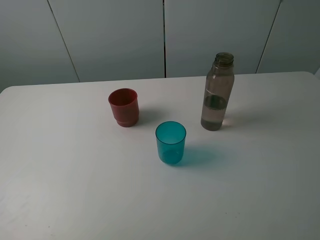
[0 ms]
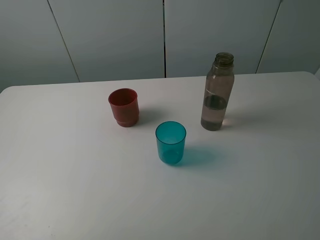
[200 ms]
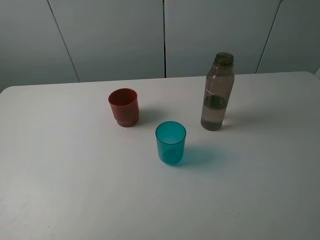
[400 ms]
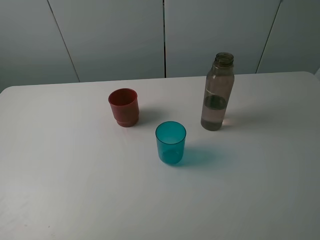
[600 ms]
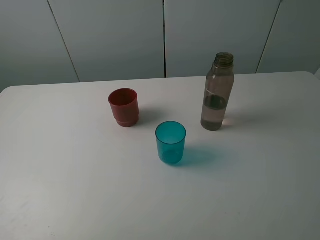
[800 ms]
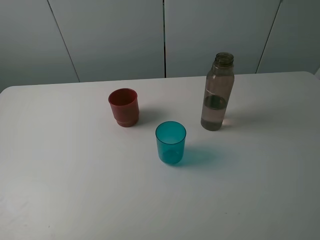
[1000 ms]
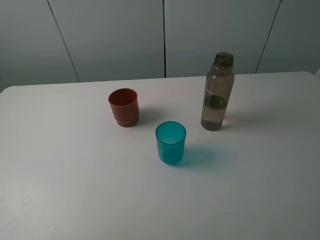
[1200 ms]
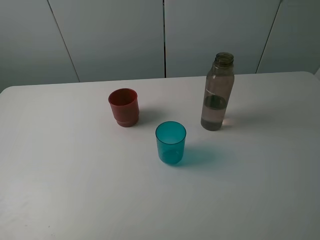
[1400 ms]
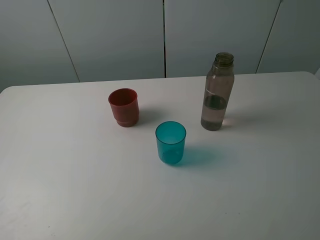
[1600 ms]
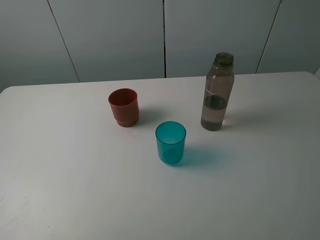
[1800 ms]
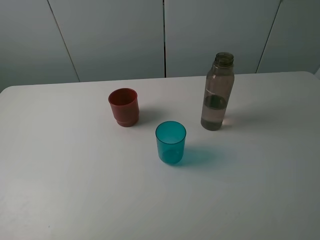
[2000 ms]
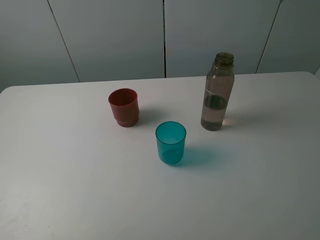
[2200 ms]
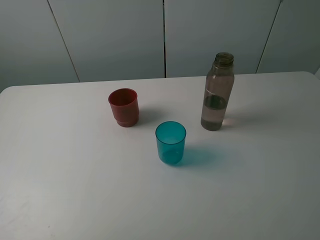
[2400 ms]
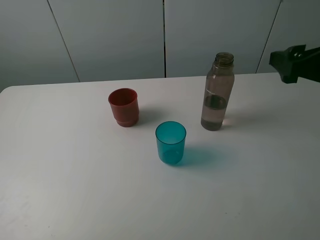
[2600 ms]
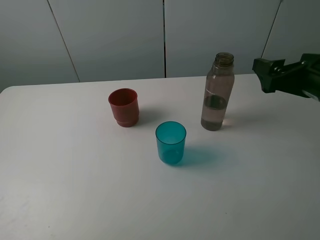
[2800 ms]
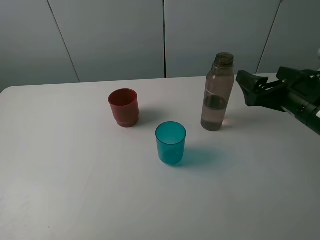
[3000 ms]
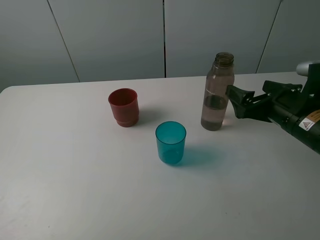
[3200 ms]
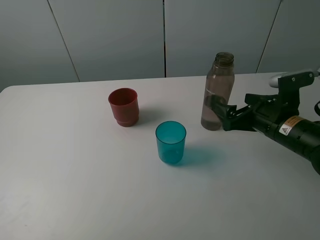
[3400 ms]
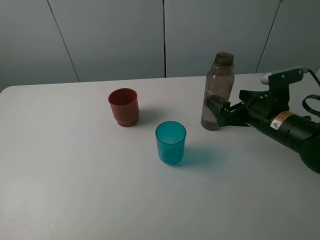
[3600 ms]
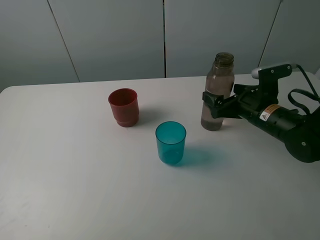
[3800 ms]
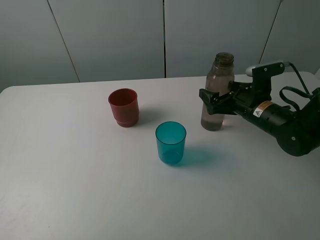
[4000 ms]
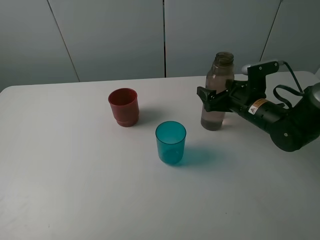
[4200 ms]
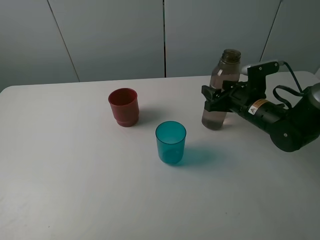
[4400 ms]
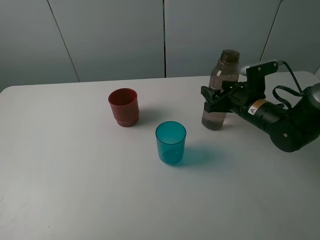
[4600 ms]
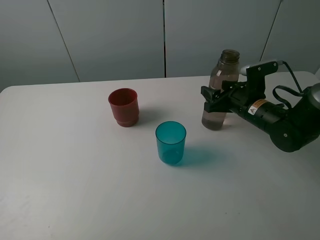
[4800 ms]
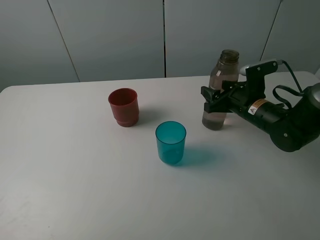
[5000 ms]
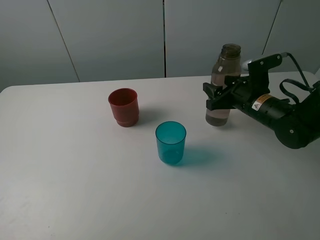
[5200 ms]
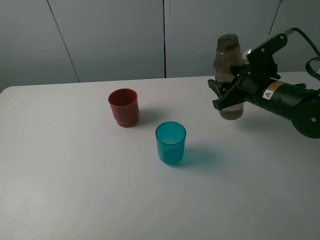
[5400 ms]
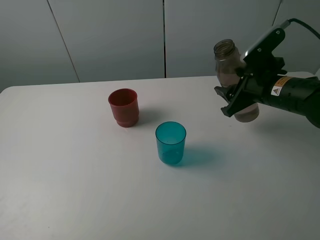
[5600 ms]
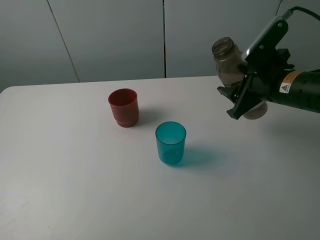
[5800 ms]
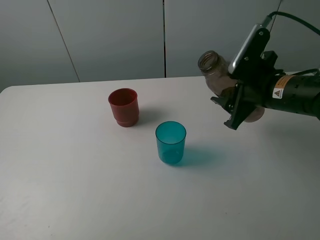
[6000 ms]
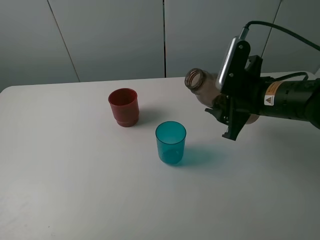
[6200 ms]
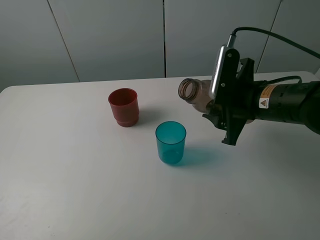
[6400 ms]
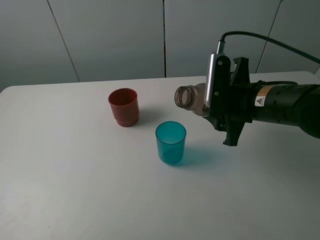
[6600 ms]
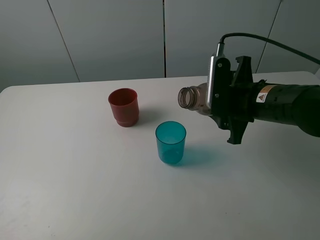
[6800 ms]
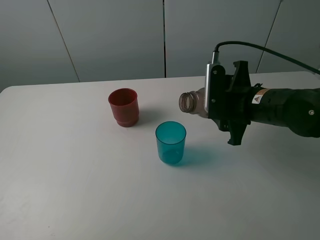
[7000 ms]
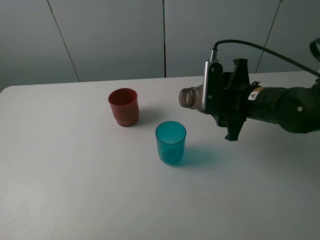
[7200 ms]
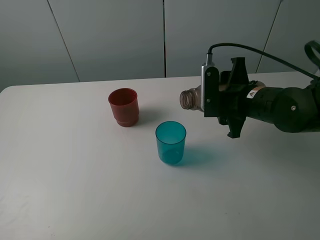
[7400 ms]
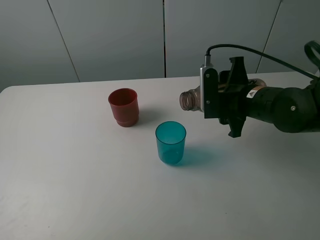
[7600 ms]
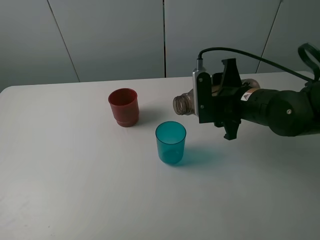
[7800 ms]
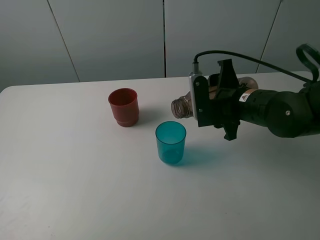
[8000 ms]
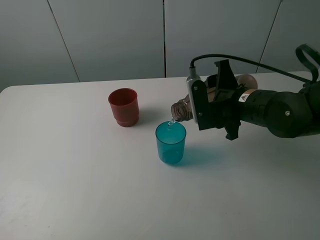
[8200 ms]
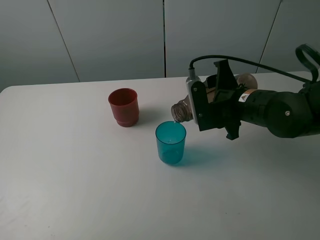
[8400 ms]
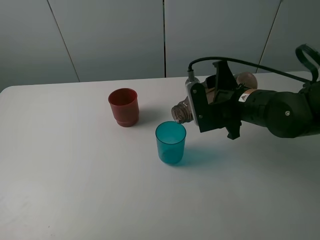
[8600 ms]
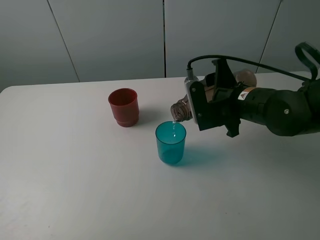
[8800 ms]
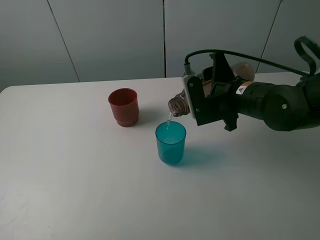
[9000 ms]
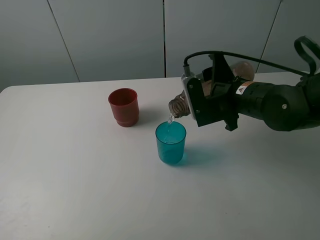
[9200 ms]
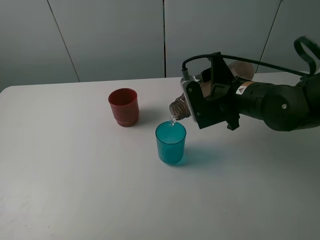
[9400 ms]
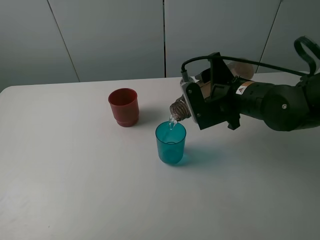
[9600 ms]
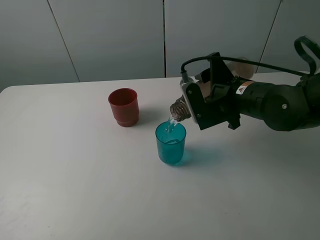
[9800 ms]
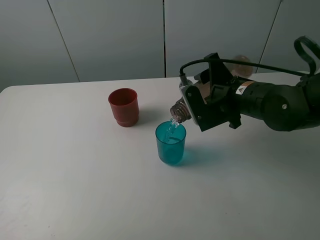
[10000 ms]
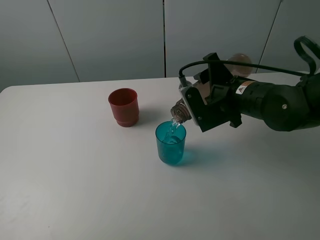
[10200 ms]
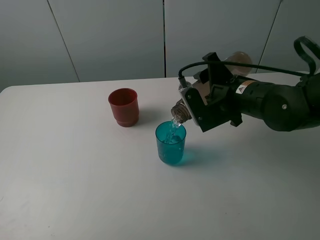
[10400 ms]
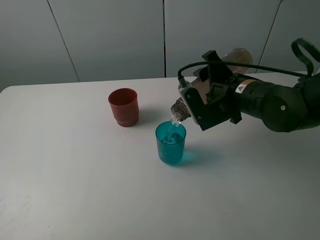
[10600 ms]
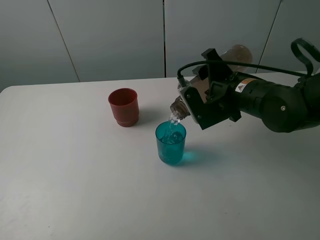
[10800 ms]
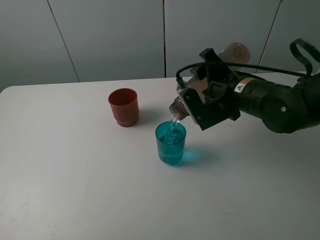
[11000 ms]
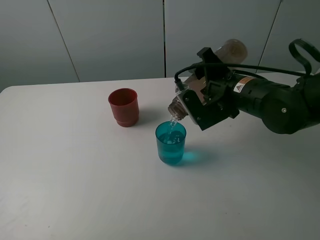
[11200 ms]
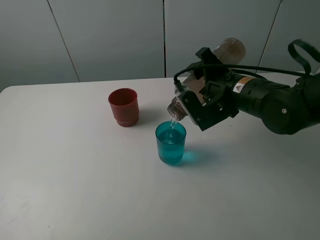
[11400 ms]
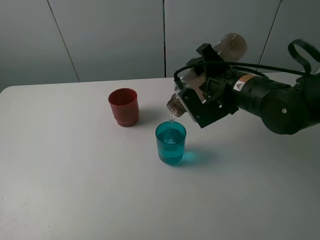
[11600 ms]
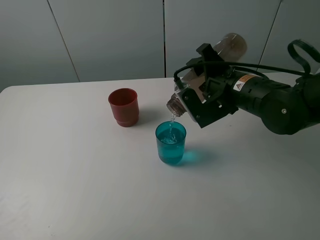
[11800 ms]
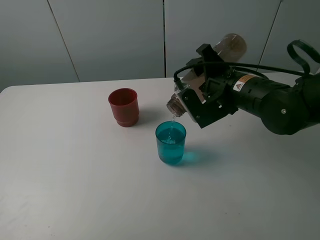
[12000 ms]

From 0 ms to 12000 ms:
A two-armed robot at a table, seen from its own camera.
Task of the whole recording: pick up the bottle and pour water into the cup, then pick up the cup containing water and pour it into another cup.
Step, from 0 ms to 4600 ms: Grasp the brown bottle with the right gripper.
From 0 ms to 1600 ms: The two grippers keep their place.
From 1600 ms to 3000 ms: The right gripper heads forward and downward, covering about 25 cm.
From 3000 ms to 4400 ms: The right gripper goes approximately 15 cm forward and downward, and closes.
From 4400 ms to 6000 ms: The right gripper shifts roughly 10 cm upward and backward.
From 7600 ms to 9000 ms: The grippers stay close to where they were, moving slightly.
From 9000 ms to 10400 ms: There are only small adjustments of the grippers.
From 10400 ms to 12000 ms: The grippers make only small movements.

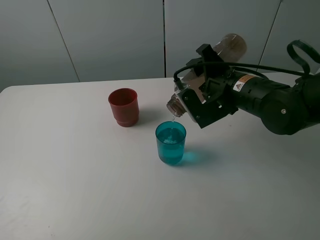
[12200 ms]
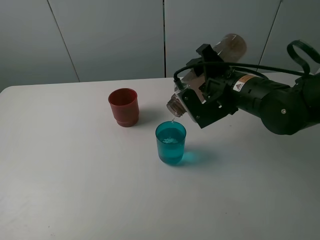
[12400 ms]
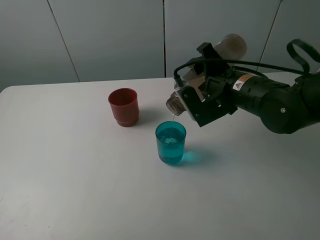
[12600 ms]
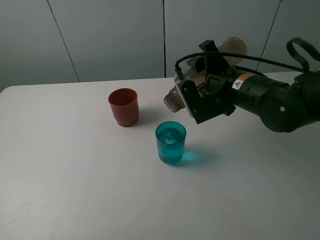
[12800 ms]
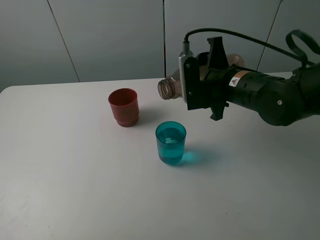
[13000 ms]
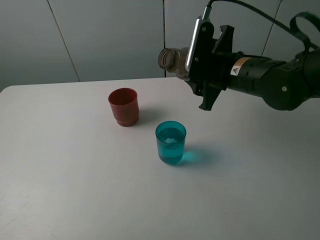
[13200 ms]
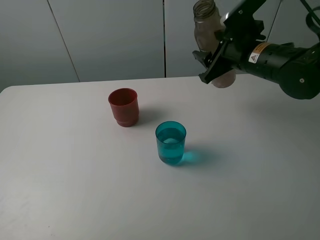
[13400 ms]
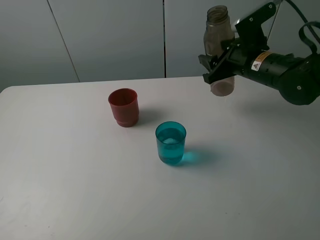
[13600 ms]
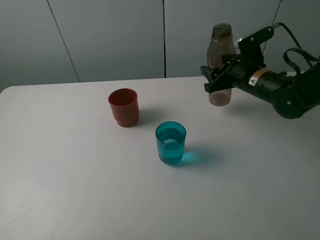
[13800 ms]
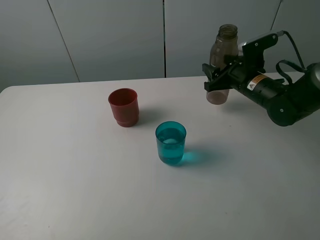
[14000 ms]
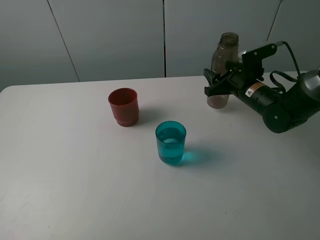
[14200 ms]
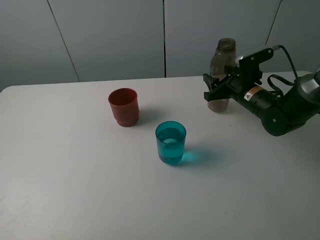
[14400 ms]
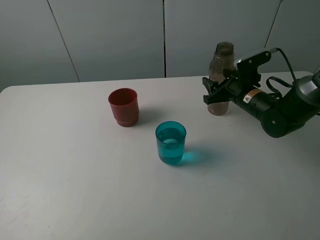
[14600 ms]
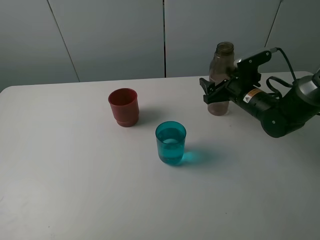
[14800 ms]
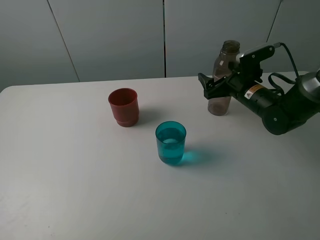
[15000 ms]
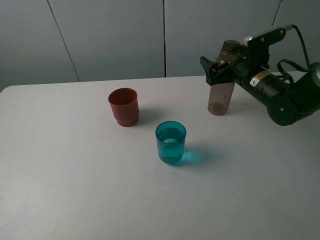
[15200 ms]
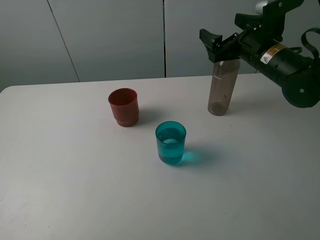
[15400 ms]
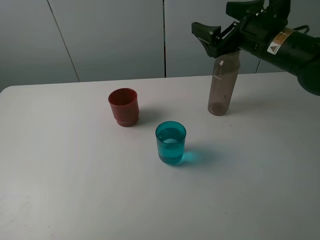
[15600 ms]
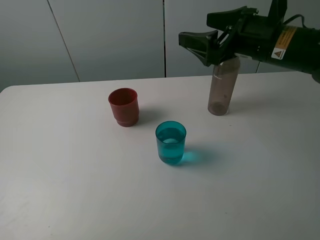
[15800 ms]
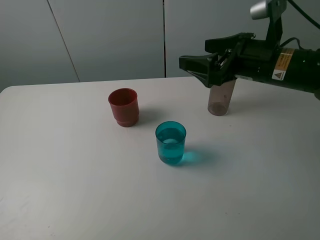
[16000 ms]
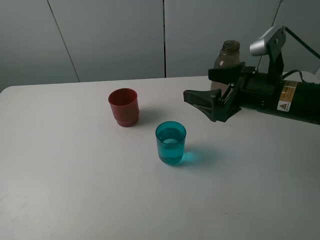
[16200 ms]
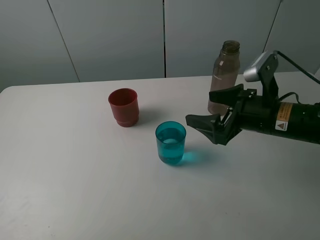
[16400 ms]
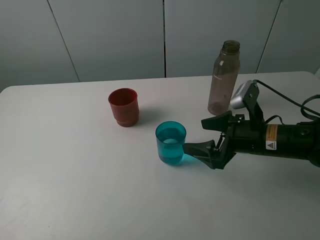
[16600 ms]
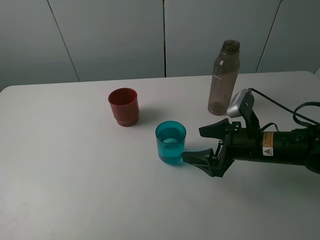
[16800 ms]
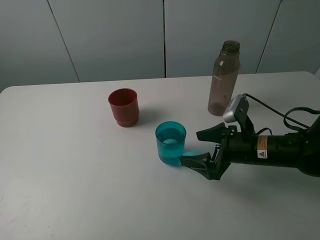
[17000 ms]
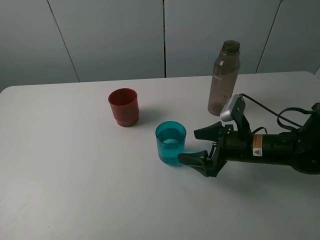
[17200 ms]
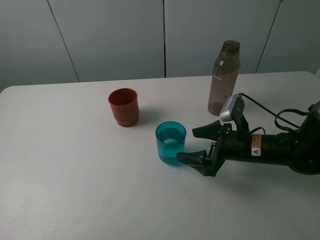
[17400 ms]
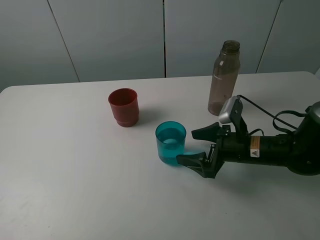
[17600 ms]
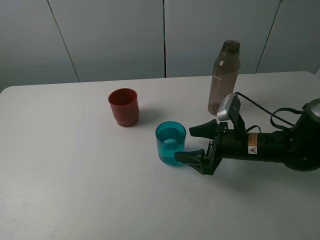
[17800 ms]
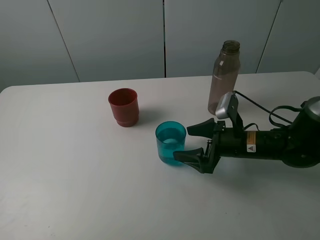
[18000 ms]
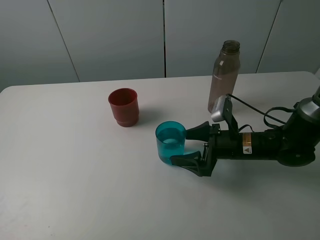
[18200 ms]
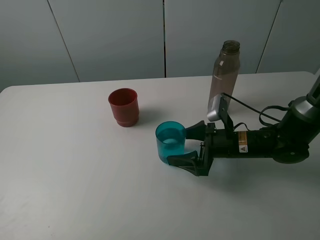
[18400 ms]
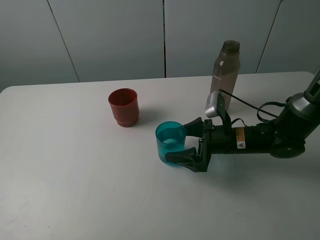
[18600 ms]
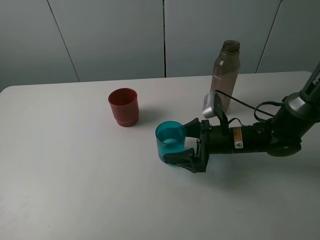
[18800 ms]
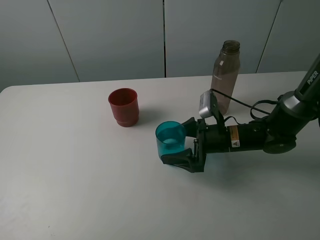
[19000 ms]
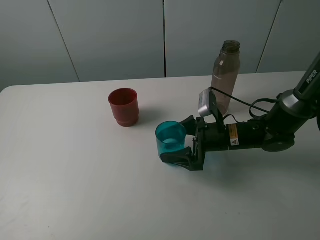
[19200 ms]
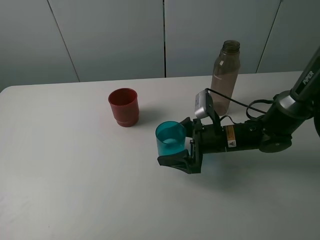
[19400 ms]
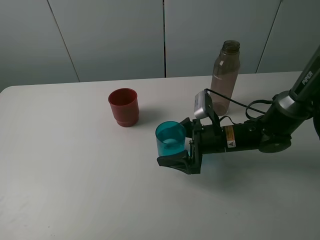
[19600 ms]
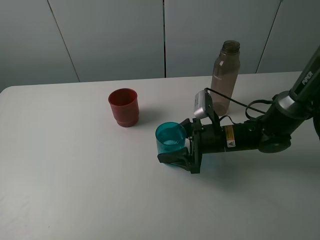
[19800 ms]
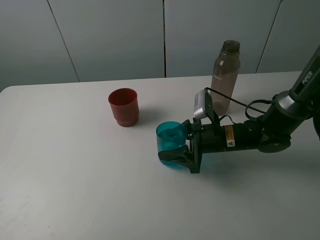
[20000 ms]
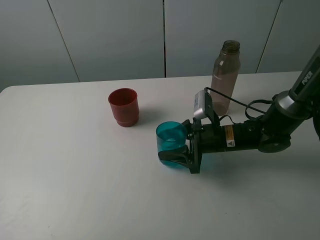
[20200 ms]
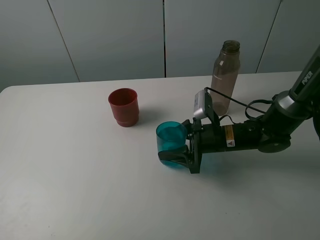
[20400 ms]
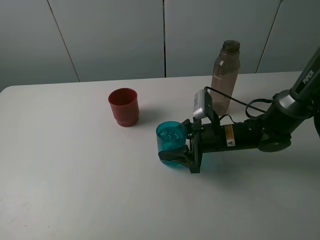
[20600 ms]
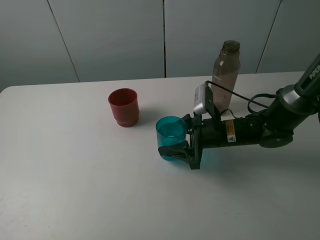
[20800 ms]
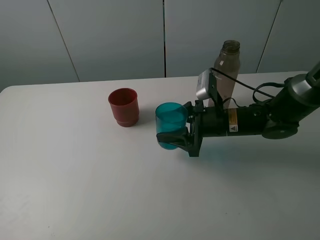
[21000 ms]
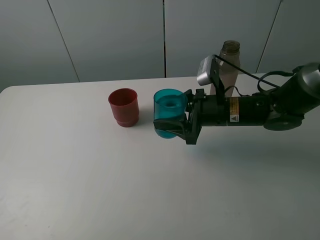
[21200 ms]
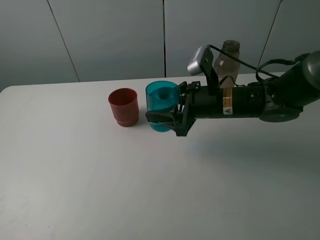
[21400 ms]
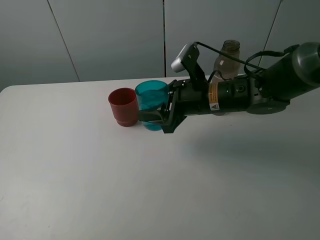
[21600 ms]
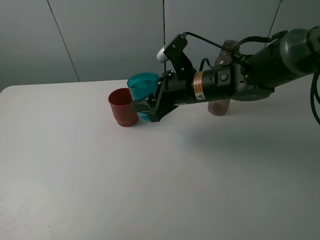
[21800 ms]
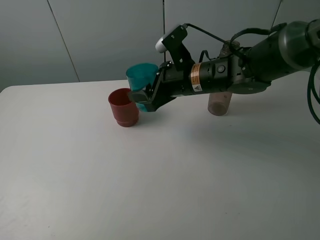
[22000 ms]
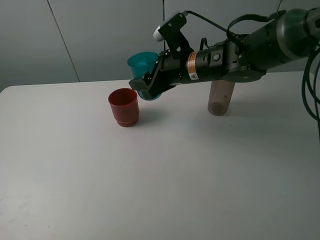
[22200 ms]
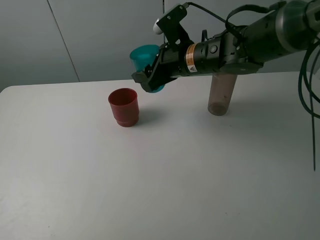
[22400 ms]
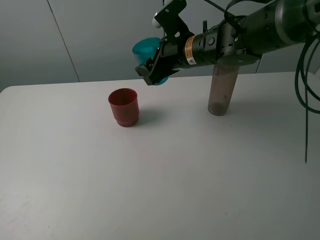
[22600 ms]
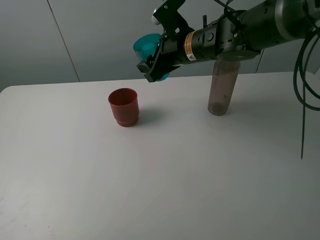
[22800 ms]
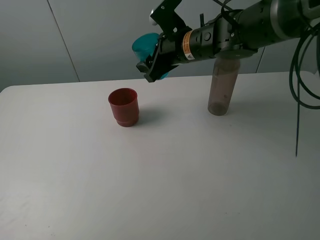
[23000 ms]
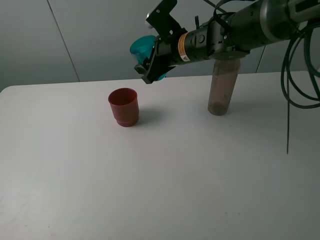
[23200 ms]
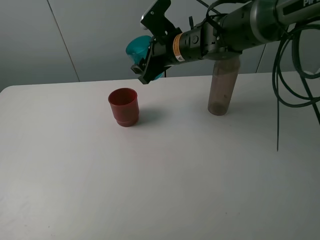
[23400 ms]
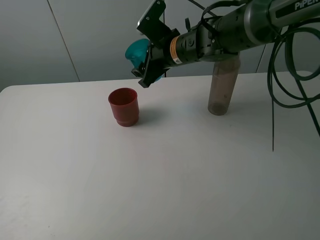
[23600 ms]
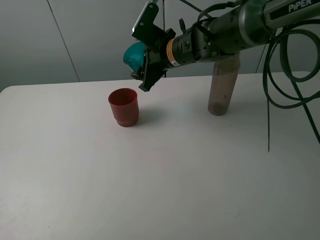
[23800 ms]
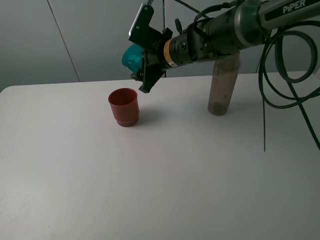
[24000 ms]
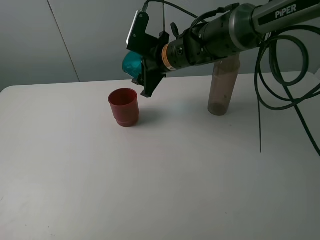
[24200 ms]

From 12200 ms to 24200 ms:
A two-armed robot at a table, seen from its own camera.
Task of the whole recording: pick up the bottle and pour water into the cup, then pick up the cup containing water and pour it into another cup.
Step, from 13000 ms to 15000 ms: Place the brown bottle with the right gripper.
Step, from 15200 ms to 20000 ms: Grasp the blue cup with the right gripper.
From 12200 ms to 13800 ms: The right gripper goes roughly 10 cm forward and to the right.
From 13800 ms to 15200 ms: The right gripper opens.
From 15200 ms to 16600 ms: The right gripper shifts some 15 cm backward, and moves approximately 10 cm upward and comes back.
From 16600 ms to 18200 ms: The right gripper is displaced downward by about 5 cm.
From 18200 ms to 19800 ms: The right gripper closes its fingers.
From 19800 ms to 21200 ms: The right gripper moves upward, about 5 cm.
From 21200 ms to 22600 ms: The right gripper shifts approximately 15 cm upward, forward and to the left.
From 22600 ms to 24200 ms: The right gripper moves about 5 cm.
